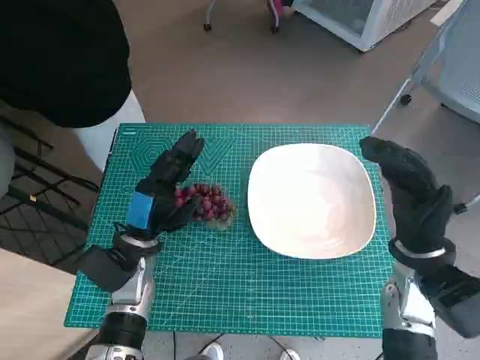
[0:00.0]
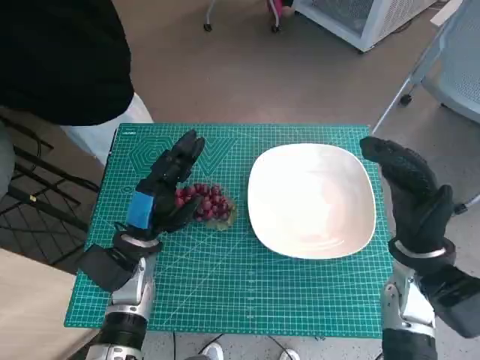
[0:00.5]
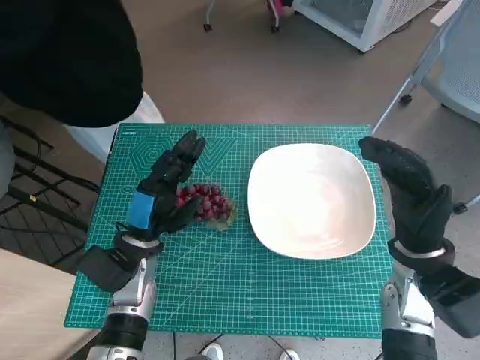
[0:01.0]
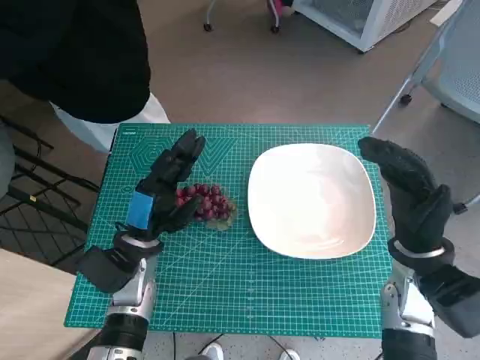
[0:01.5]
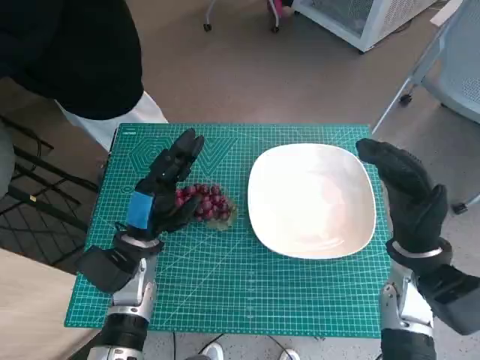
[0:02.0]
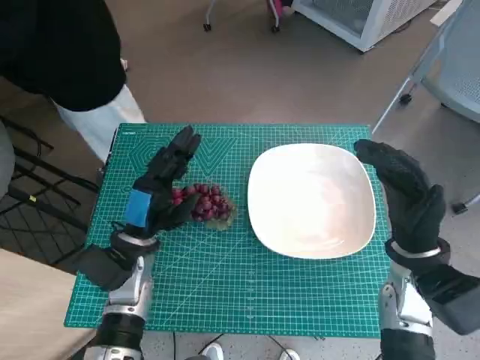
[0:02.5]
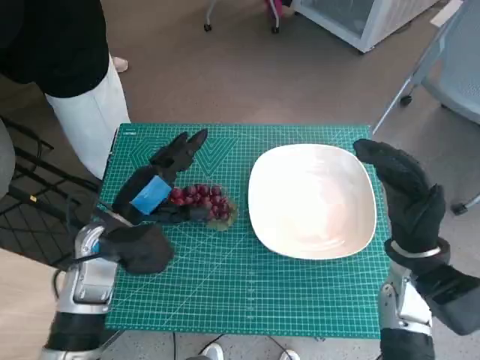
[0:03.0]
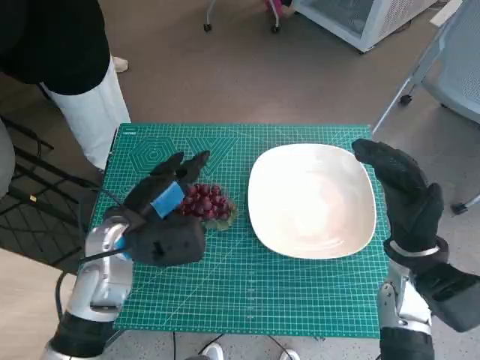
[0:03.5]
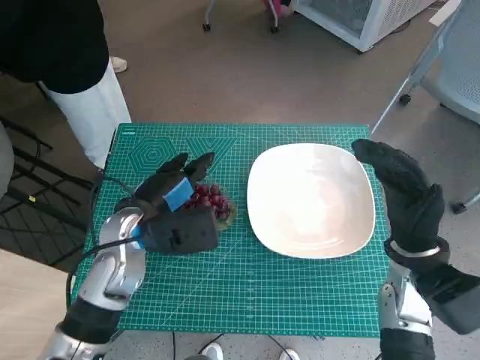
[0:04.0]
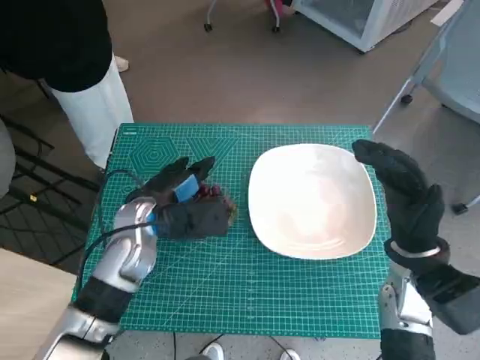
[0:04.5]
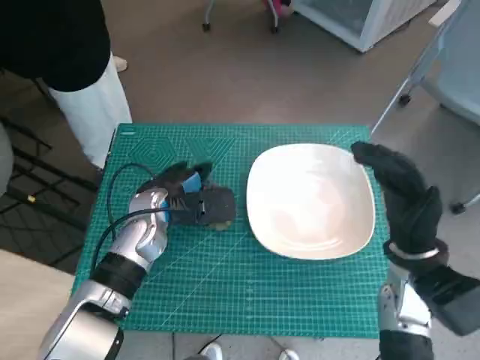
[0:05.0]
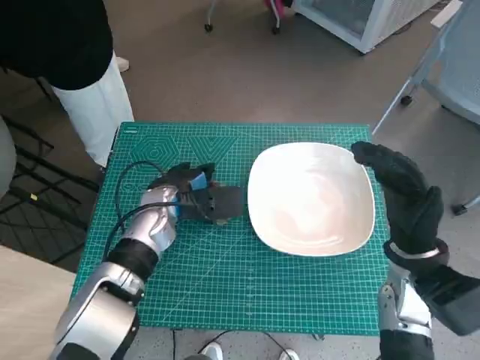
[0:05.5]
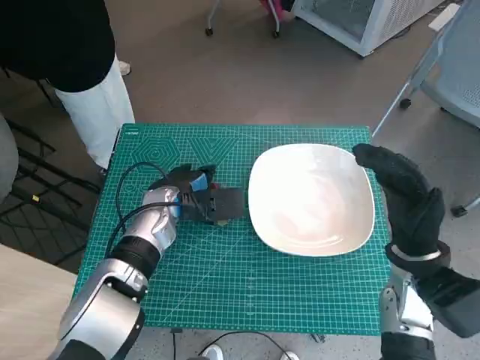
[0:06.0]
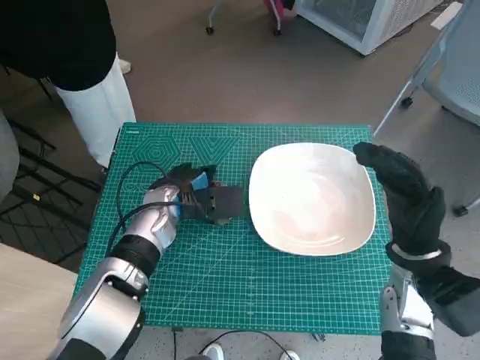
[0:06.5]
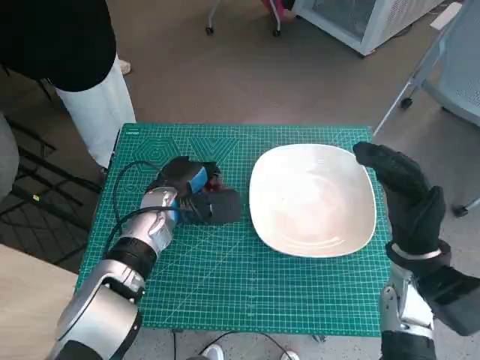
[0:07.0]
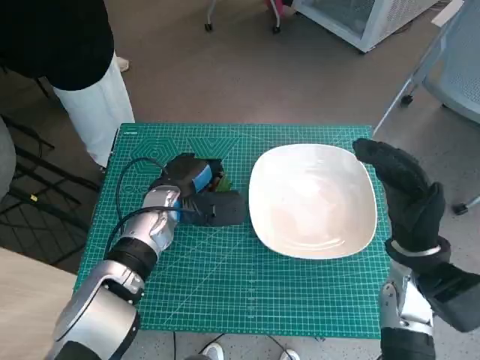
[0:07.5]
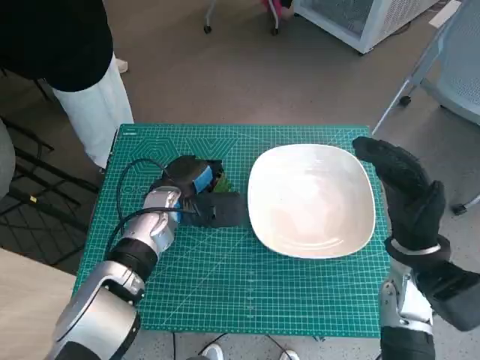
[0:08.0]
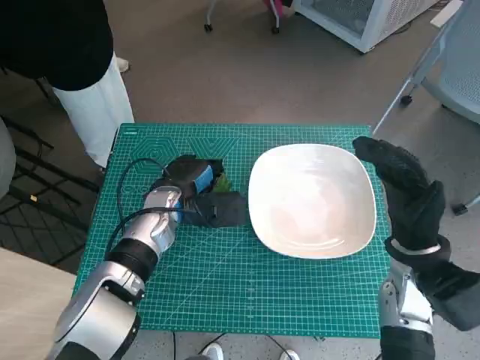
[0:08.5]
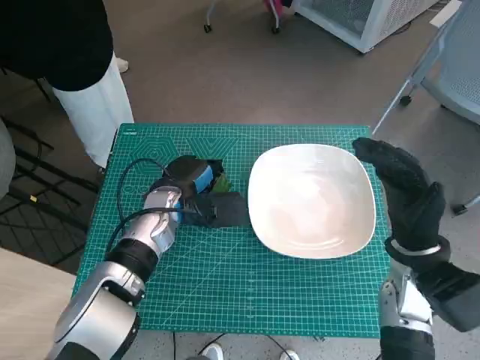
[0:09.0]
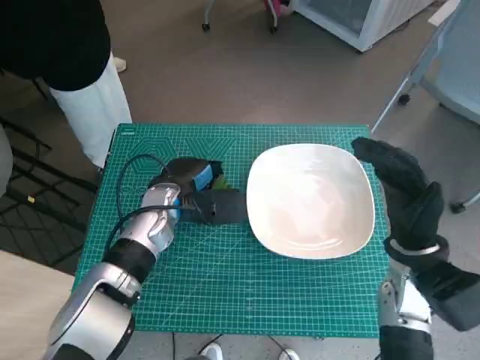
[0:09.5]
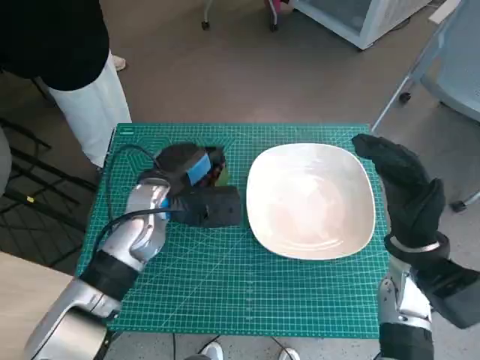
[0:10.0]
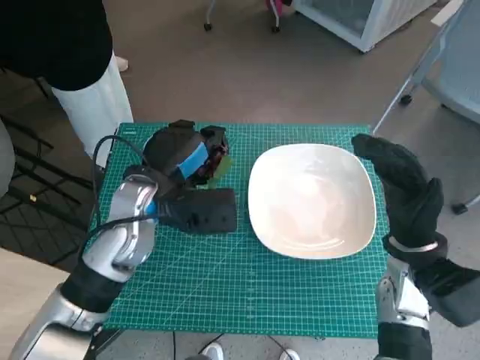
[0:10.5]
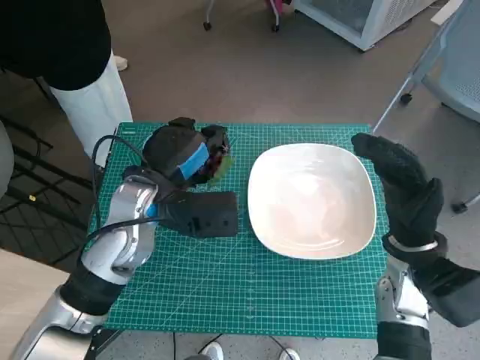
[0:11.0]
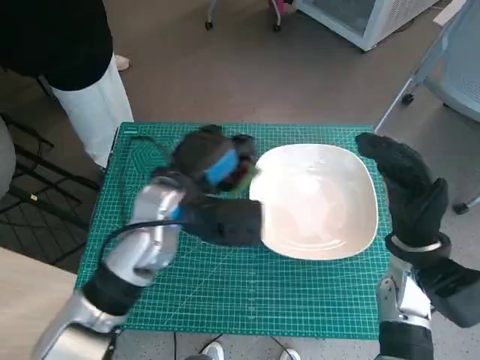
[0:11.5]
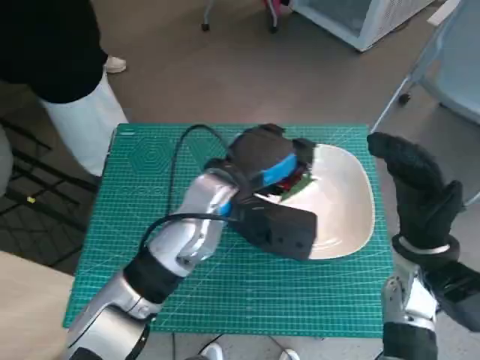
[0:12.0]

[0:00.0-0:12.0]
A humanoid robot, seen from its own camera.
Task of the whole recording: Pick up the grapes and put them on the plate.
Step, 0:00.0 to 0:06.5: Grasp the grapes with left hand.
0:02.0 to 0:04.0: The left hand travels upward by about 5 cm.
0:04.0 to 0:06.0: The left hand heads forward, covering approximately 5 cm.
0:06.0 to 0:08.0: There are only small adjustments of the hands.
0:08.0 to 0:10.0: The hands stay close to where they were, moving slightly.
0:10.0 to 0:12.0: The left hand travels to the right and upward by about 10 cm.

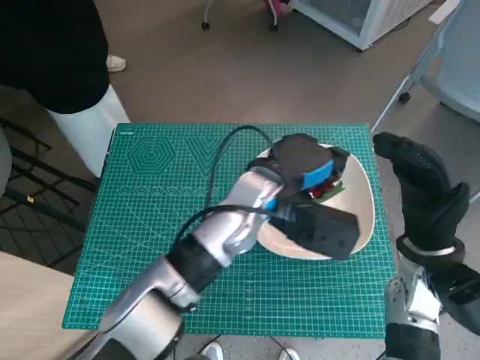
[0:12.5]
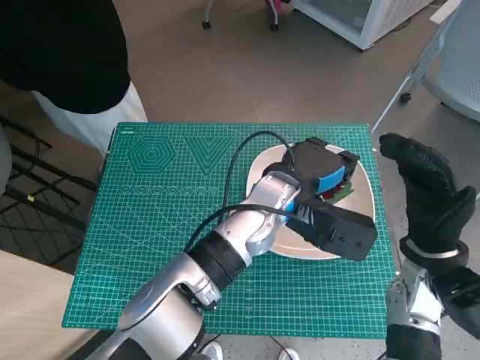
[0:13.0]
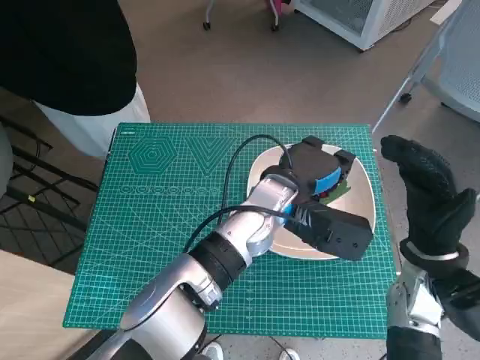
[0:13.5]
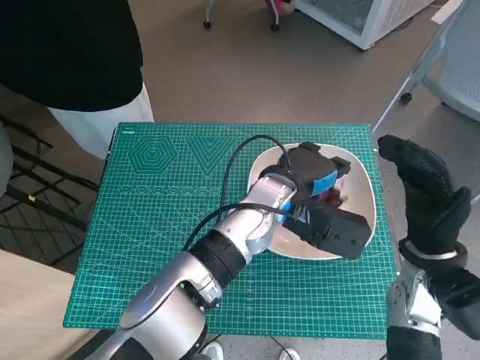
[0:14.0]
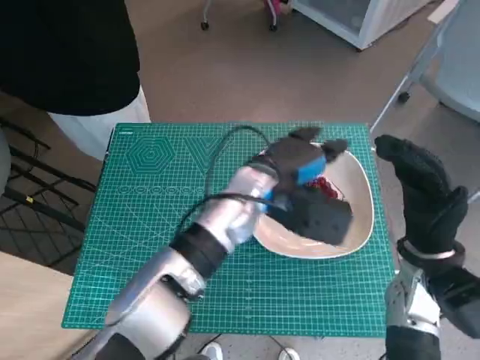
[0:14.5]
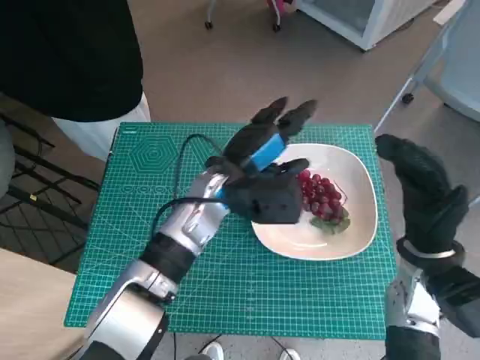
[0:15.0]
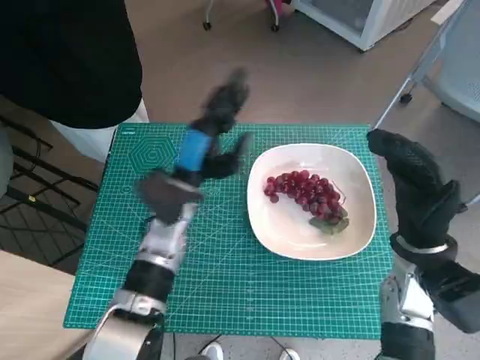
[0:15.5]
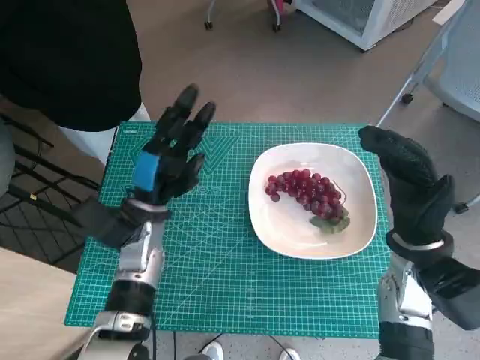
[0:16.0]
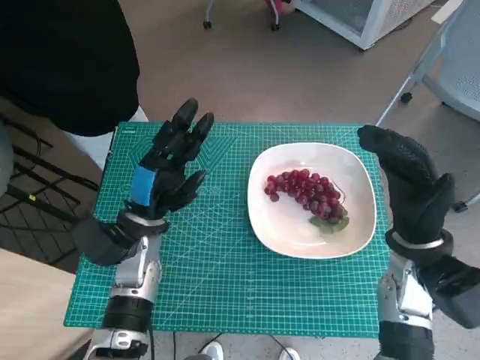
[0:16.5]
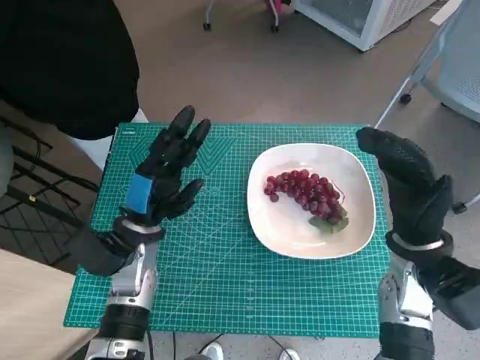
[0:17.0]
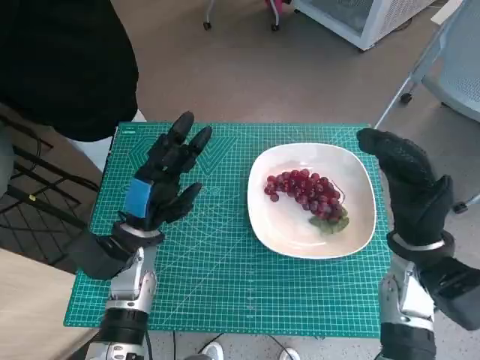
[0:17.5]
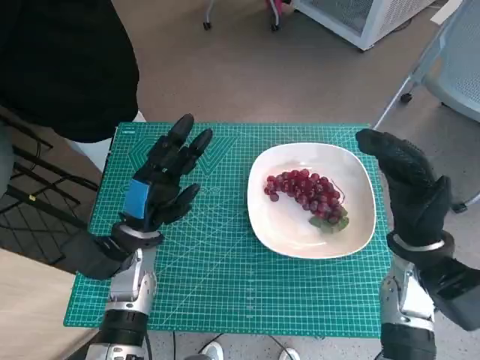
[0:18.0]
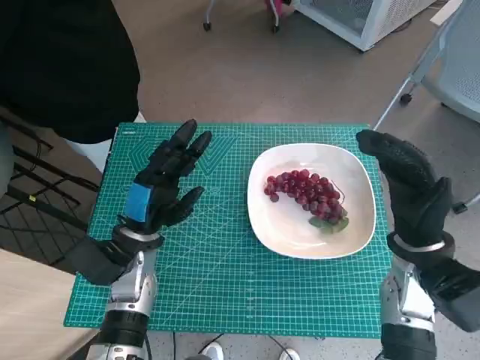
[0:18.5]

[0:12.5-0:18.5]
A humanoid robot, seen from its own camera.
Task of the whole recording: Pick up the grapes and put them on the plate.
Step, 0:12.5 to 0:14.5: Place the grapes in the plate with left hand.
0:12.5 to 0:14.5: The hands make only small movements.
0:14.5 to 0:16.5: The left hand goes about 20 cm to the left.
0:16.5 to 0:18.5: The hands stay close to where they were, moving slightly.

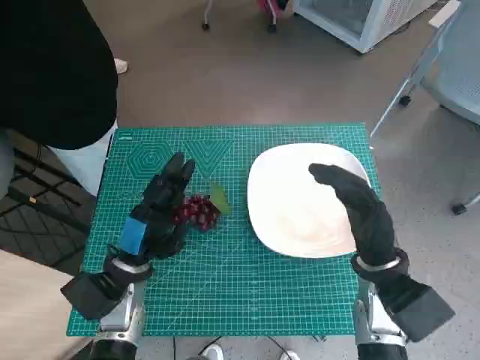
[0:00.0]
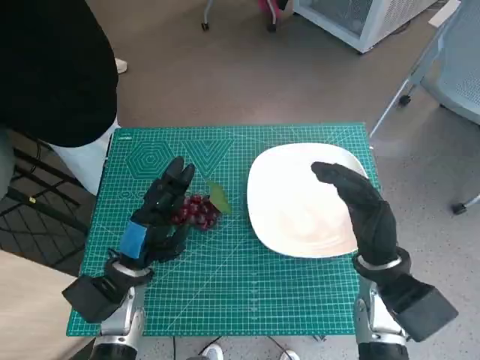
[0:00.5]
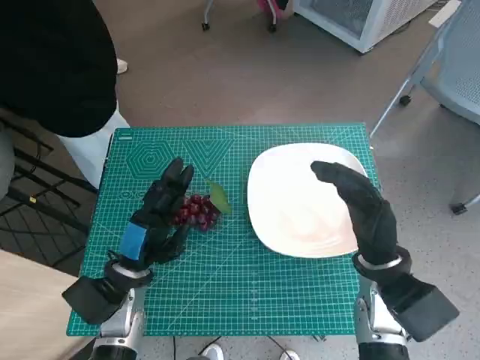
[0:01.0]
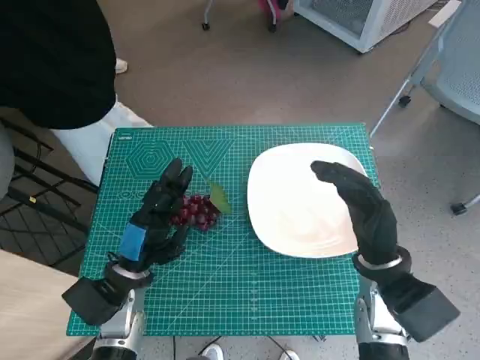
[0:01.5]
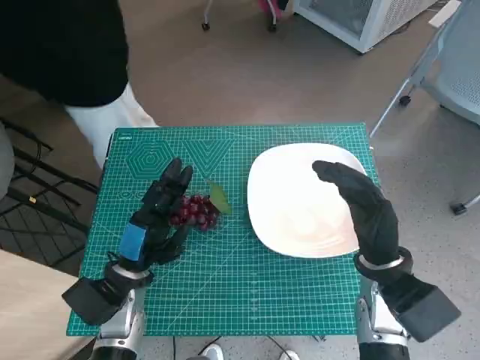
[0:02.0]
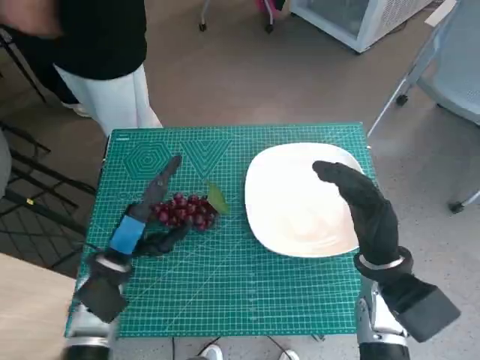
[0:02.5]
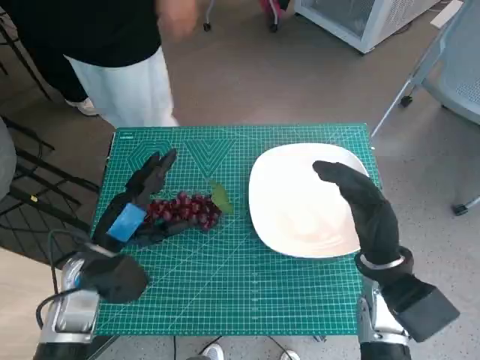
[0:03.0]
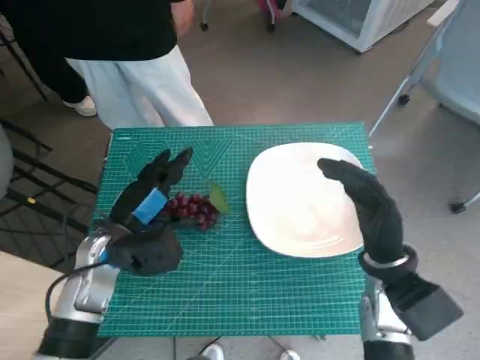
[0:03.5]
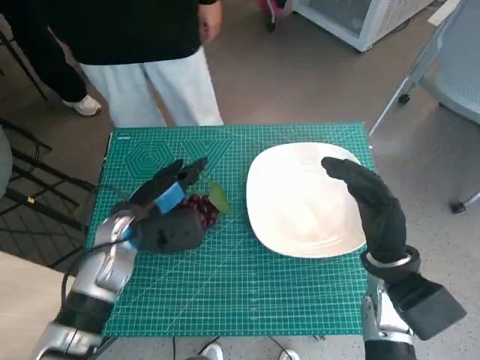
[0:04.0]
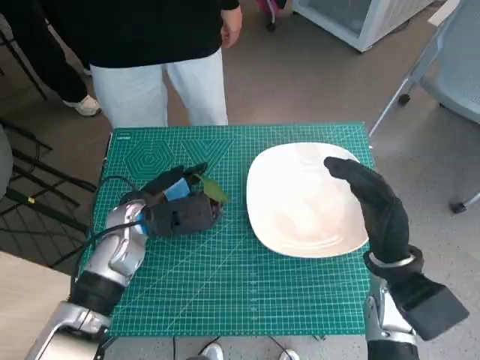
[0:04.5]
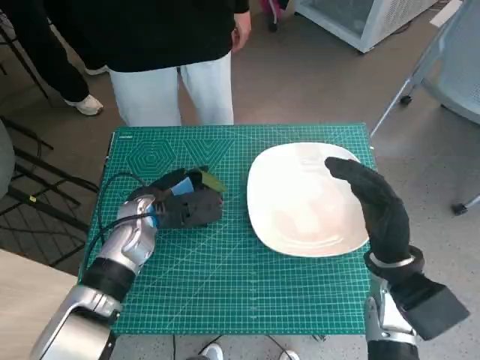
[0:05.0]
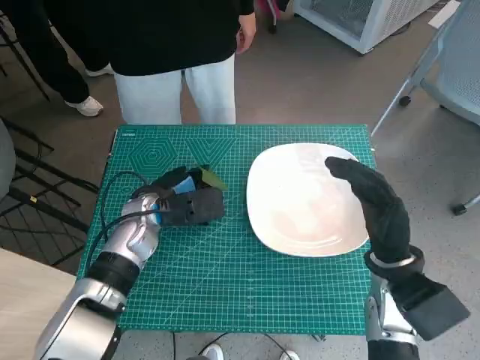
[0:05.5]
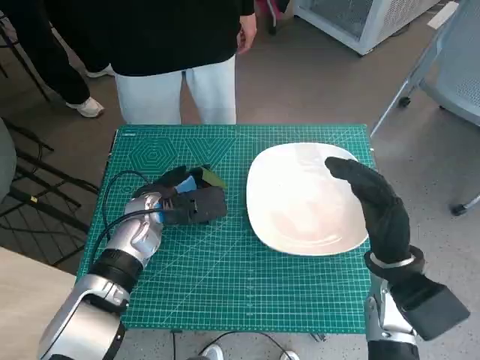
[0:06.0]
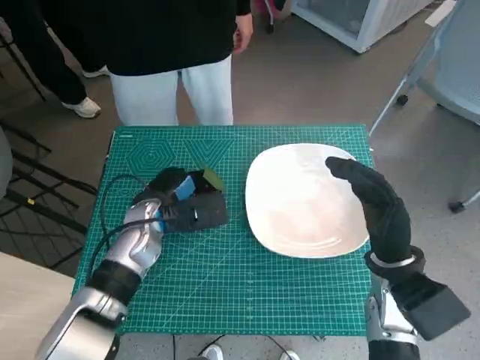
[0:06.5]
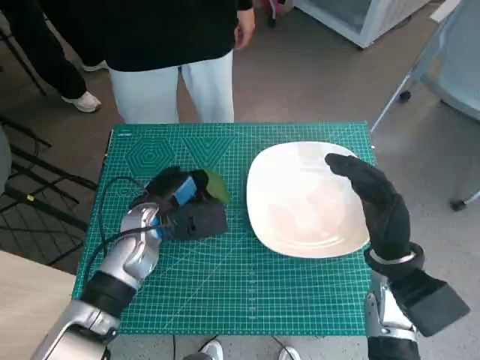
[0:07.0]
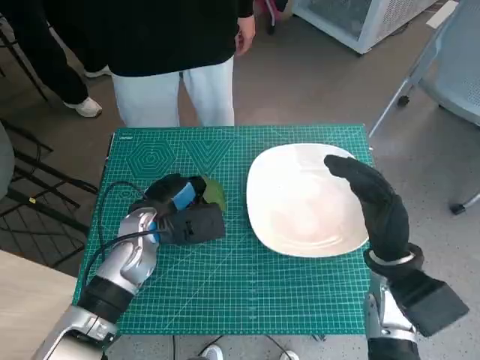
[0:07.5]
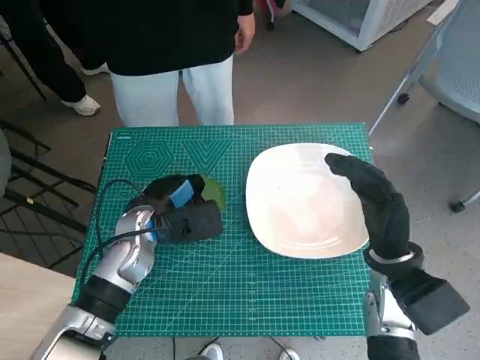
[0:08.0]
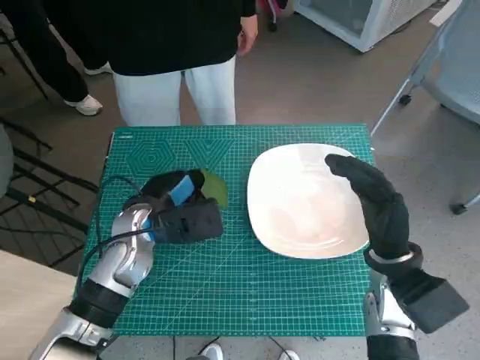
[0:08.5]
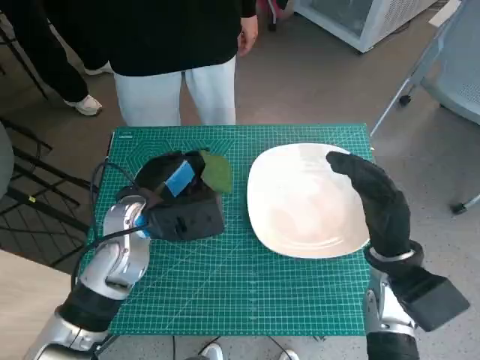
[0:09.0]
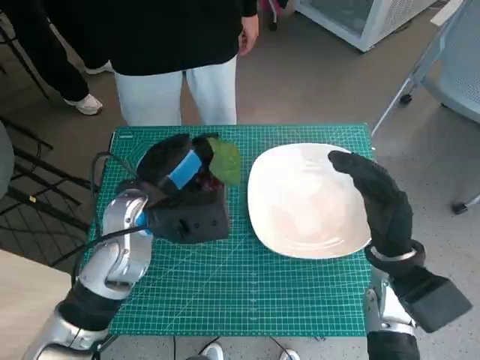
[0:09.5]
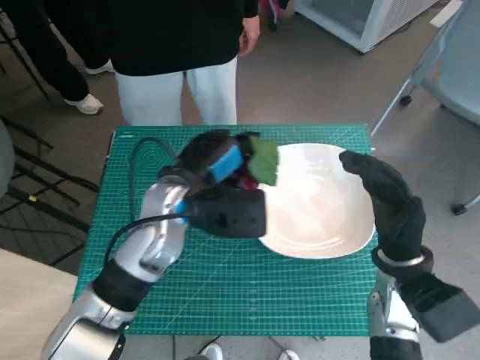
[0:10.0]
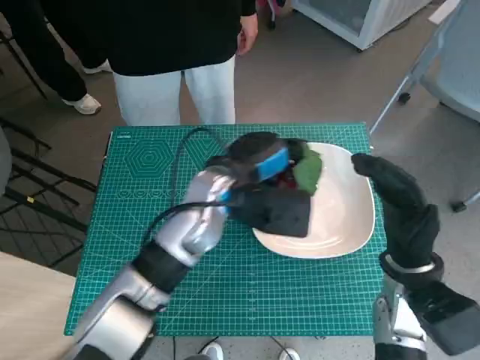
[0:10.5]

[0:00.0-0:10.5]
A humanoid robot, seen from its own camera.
Task of the whole recording: Pick up the grapes and put them on the plate.
Step, 0:00.0 to 0:07.0: Grasp the grapes with left hand.
0:02.0 to 0:04.0: The left hand heads forward and upward, covering roughly 10 cm.
0:04.0 to 0:06.5: The left hand moves some 5 cm.
0:06.5 to 0:08.5: There are only small adjustments of the hands.
0:08.5 to 0:10.5: The left hand travels to the right and upward by some 15 cm.
